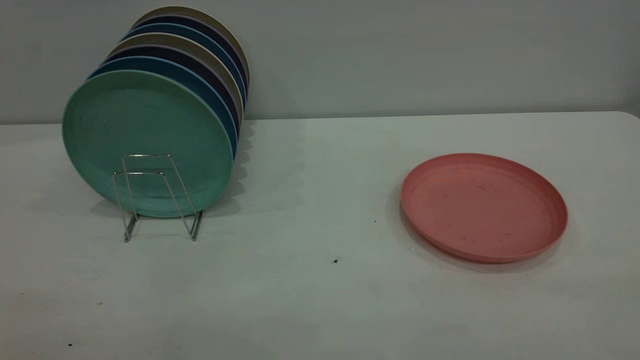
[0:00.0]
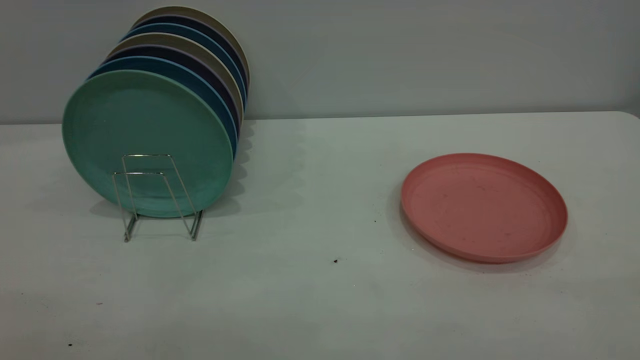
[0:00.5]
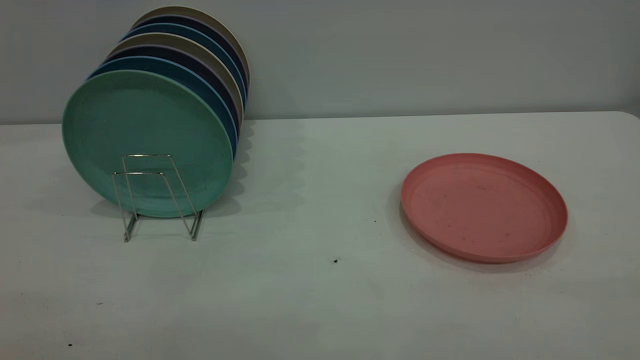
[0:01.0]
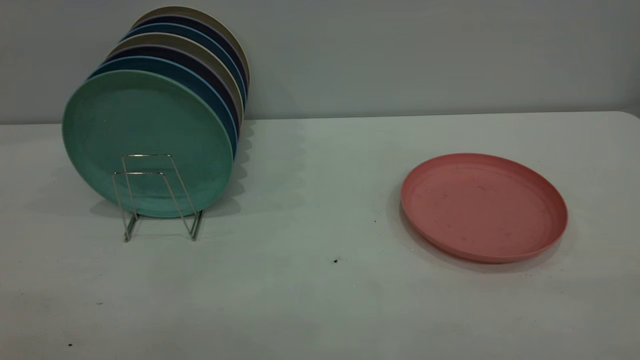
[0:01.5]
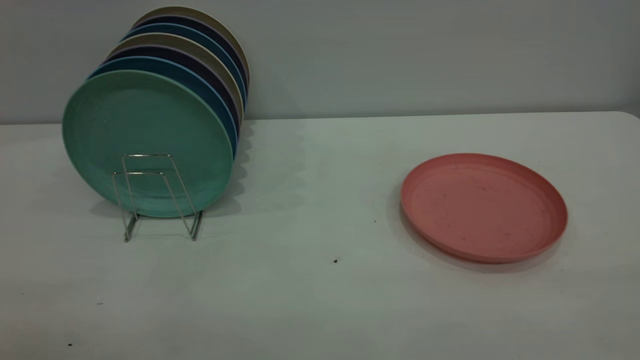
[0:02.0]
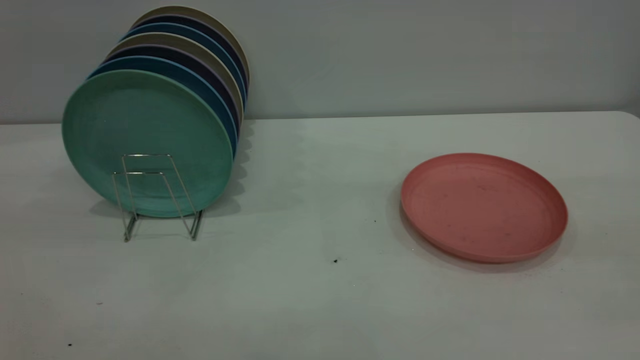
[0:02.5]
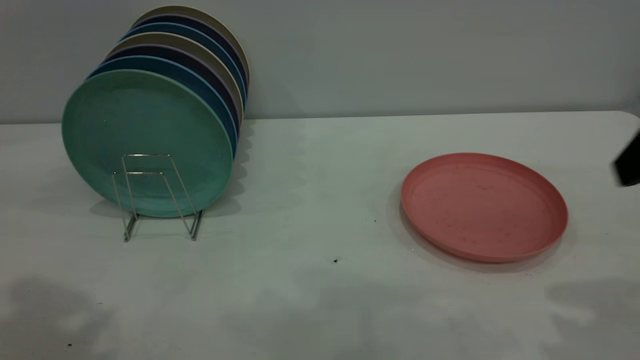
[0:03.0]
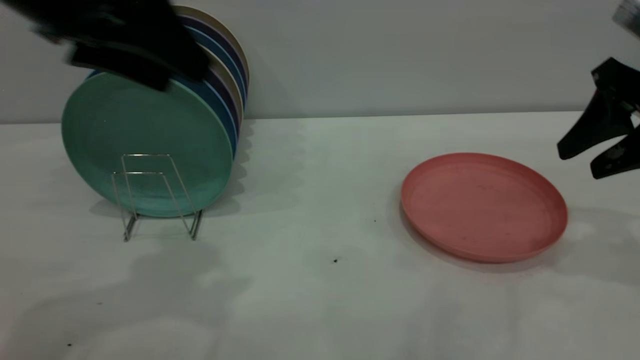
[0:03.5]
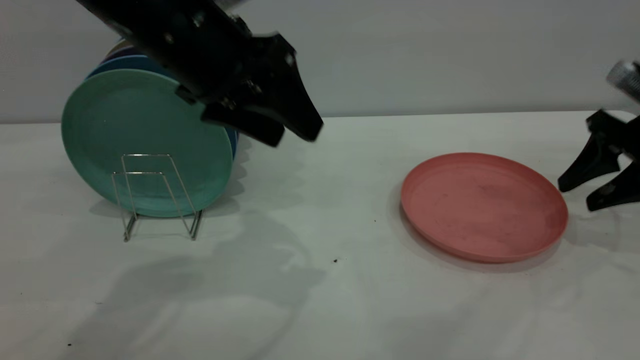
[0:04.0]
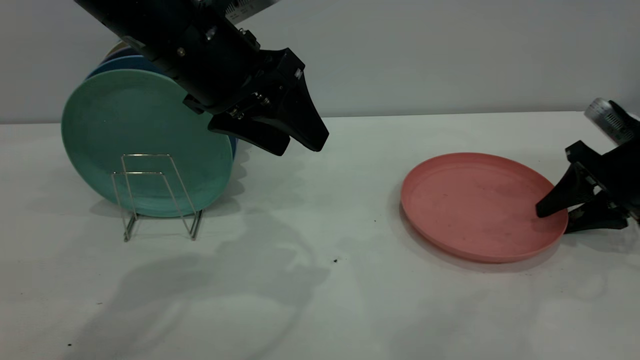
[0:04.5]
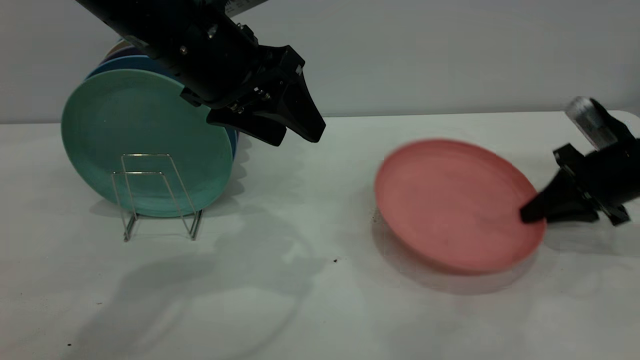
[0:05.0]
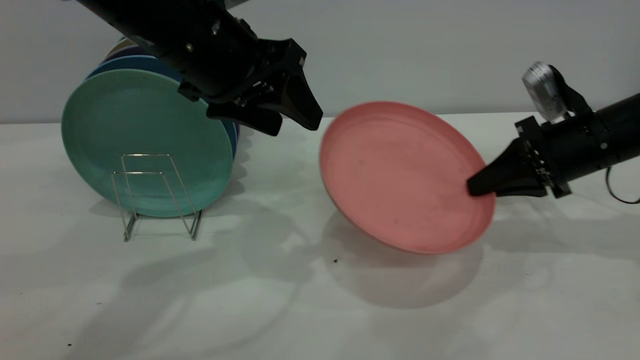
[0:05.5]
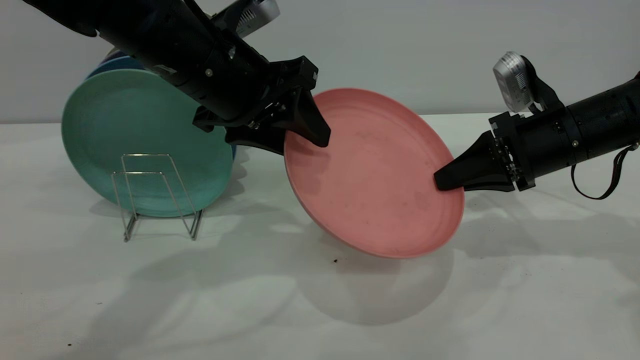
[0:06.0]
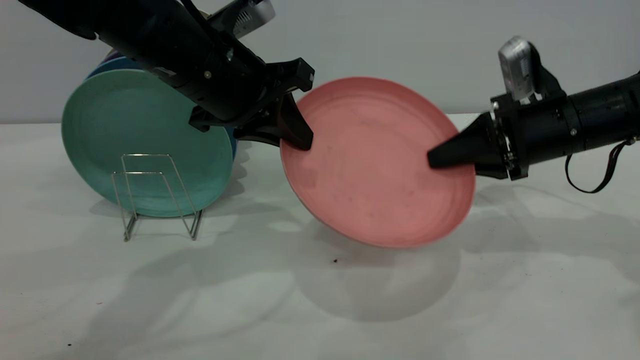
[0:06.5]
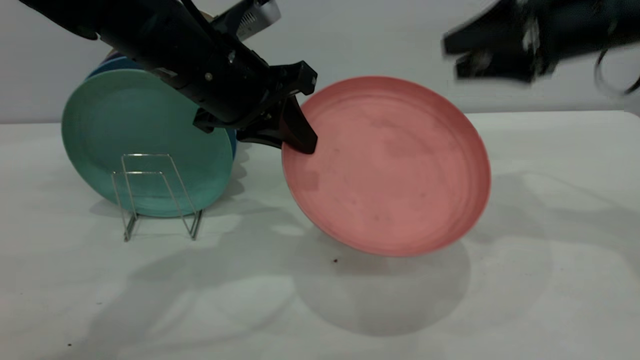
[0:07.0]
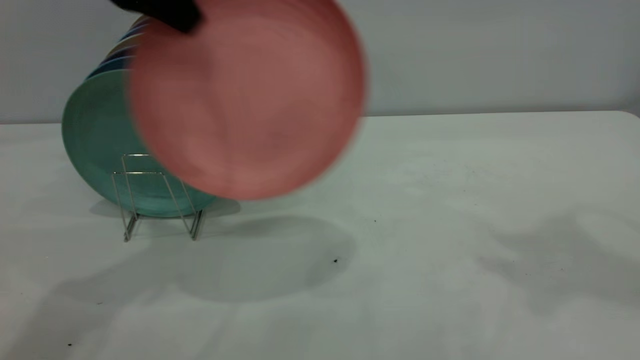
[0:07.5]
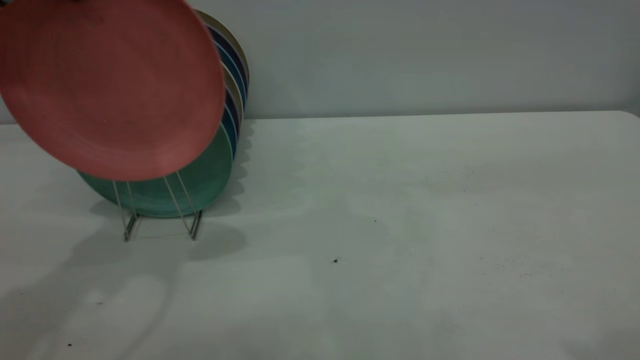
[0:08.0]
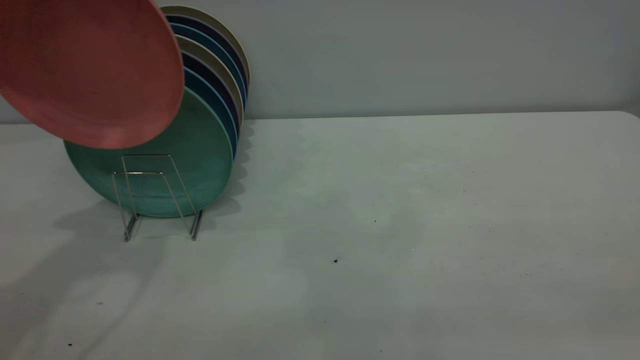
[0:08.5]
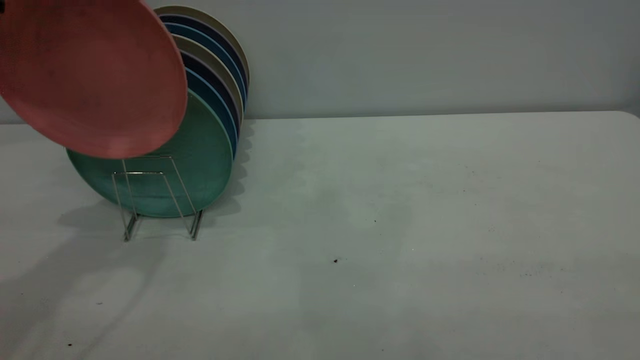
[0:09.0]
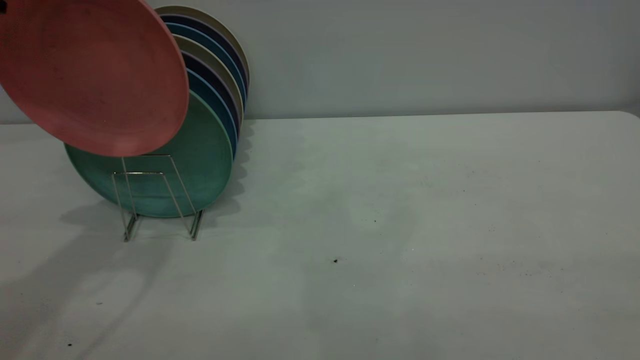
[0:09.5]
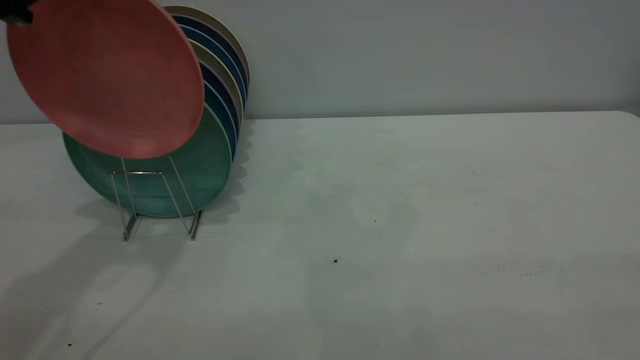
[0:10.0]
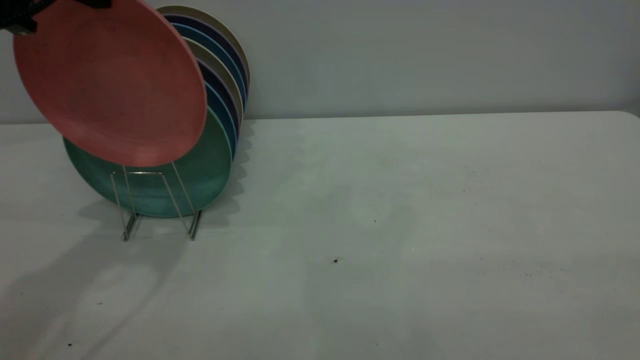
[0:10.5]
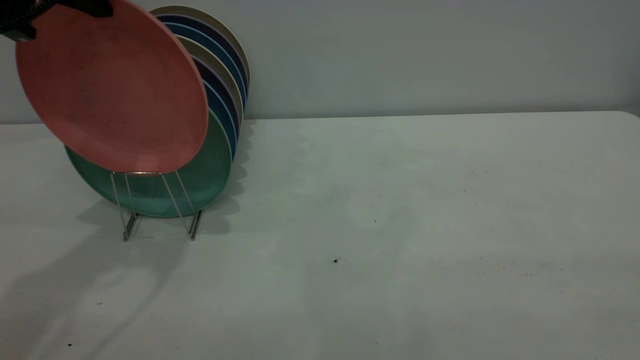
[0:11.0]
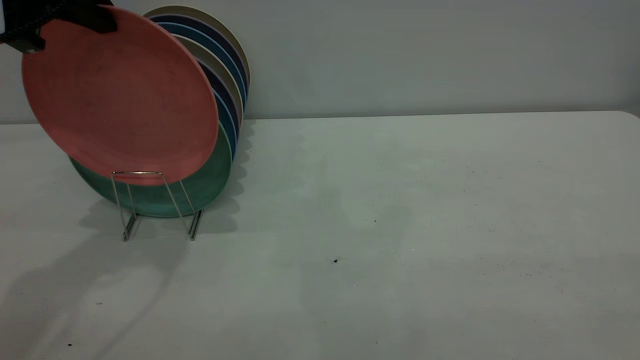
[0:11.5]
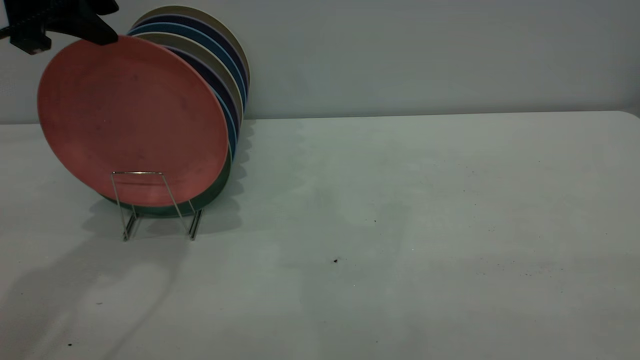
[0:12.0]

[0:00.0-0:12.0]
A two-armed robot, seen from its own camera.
Task of the whole recording: the right gripper grasp the pink plate, the right gripper pass the pink plate to the left gripper, and the left gripper place the pink plate on the plate rack.
Step, 0:00.0 to 0:05.0: Pick up the plate with the right gripper.
Step, 0:05.5 to 0:06.5: Pass the plate from the right gripper to the left gripper.
0:02.0 to 0:04.0: The right gripper is displaced forward and downward by about 50 cm. Meanwhile the left gripper moves forward and to the right, about 40 cm.
0:04.0 to 0:06.0: The right gripper shifts about 10 cm to the left, and closes up.
0:06.0 to 0:08.0: The right gripper travels upward and backward by approximately 40 cm, and opens up, while the left gripper shifts some 20 cm upward and to the left, and closes up.
0:10.0 to 0:12.0: The left gripper opens.

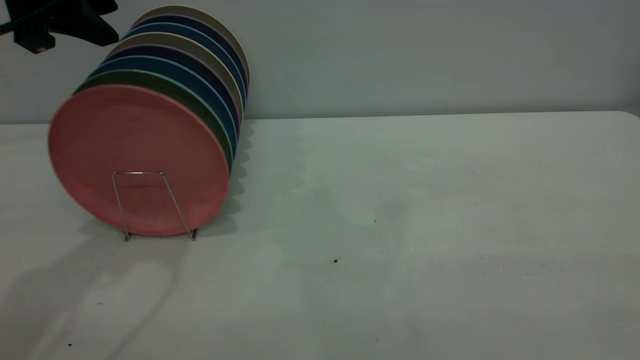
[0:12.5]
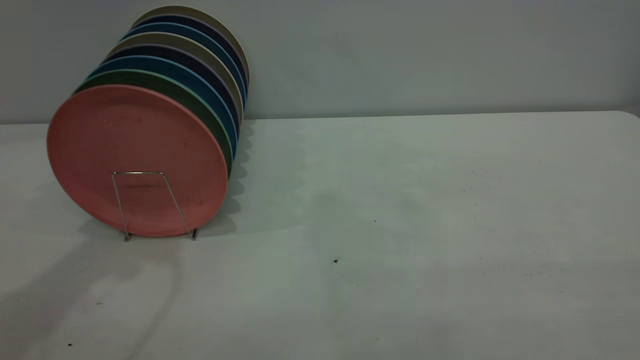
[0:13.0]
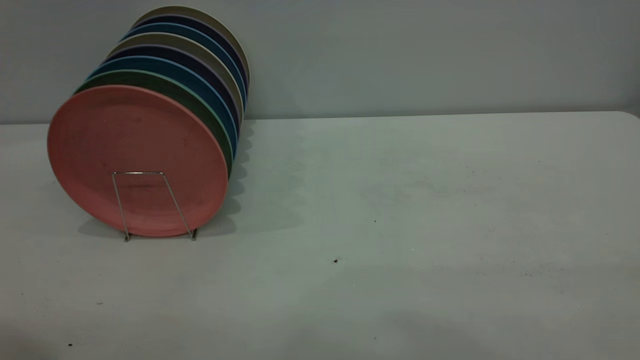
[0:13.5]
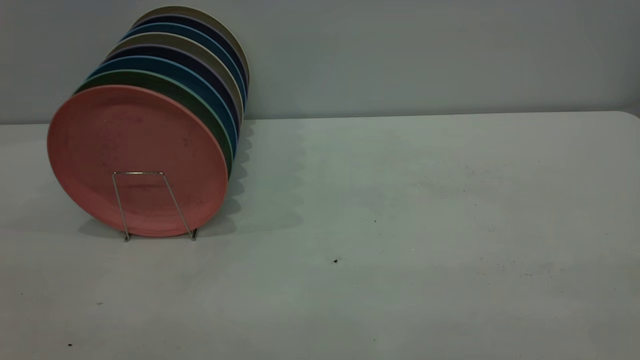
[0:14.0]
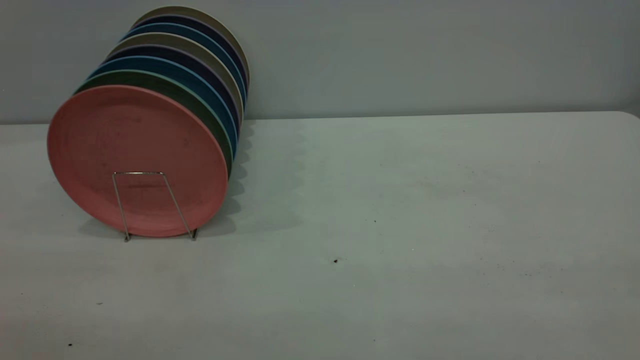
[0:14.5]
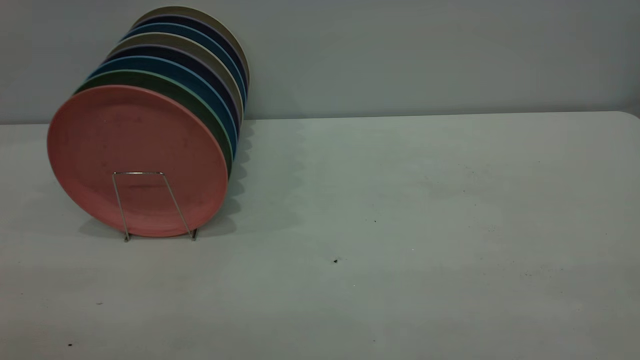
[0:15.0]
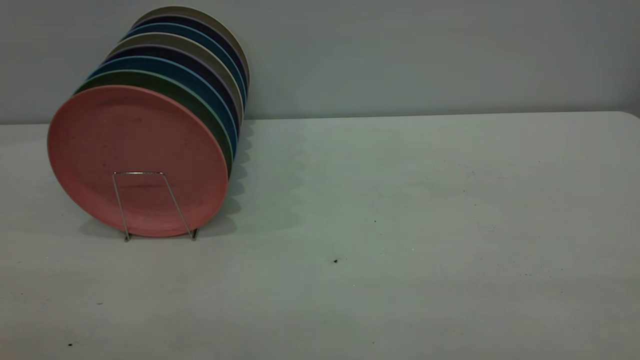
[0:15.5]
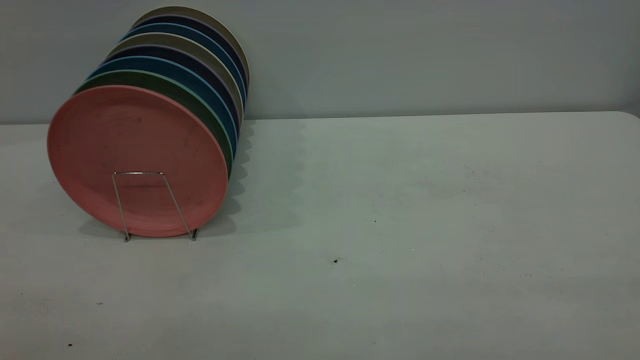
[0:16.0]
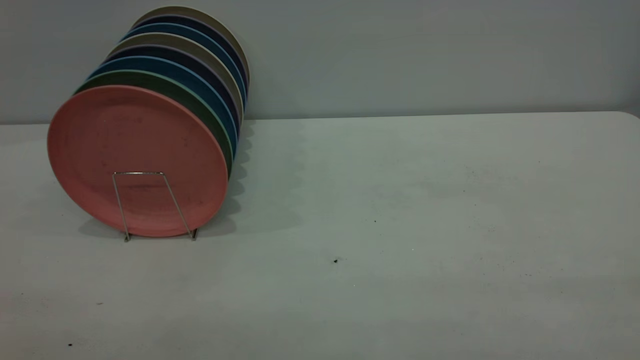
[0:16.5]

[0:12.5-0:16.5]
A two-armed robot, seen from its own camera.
Task of the whole recording: the right gripper grasp the pink plate, the right gripper pass the pink plate to the left gripper, and the left gripper place the pink plate on the plate rack.
0:12.5 to 0:14.5: The left gripper is displaced backward by approximately 35 cm.

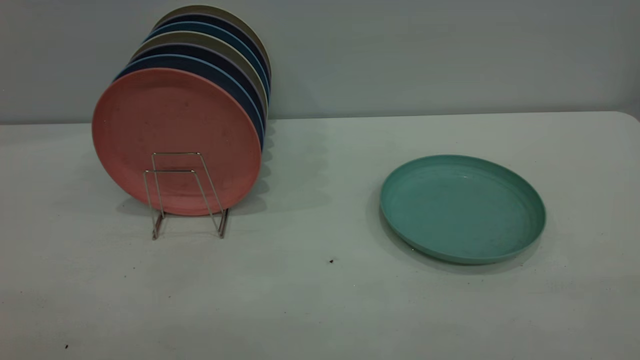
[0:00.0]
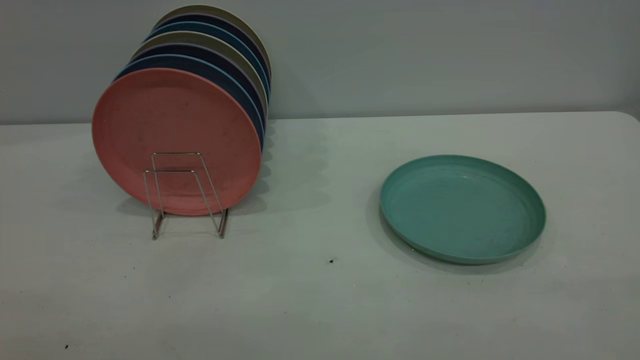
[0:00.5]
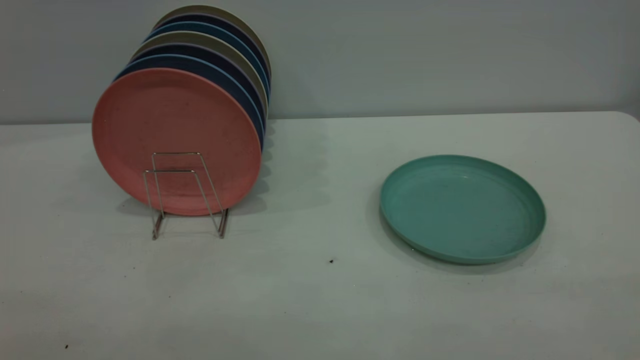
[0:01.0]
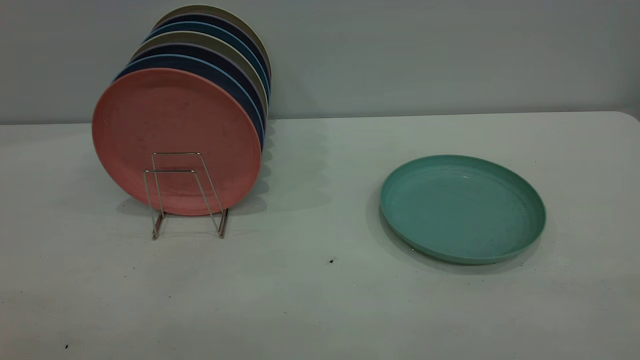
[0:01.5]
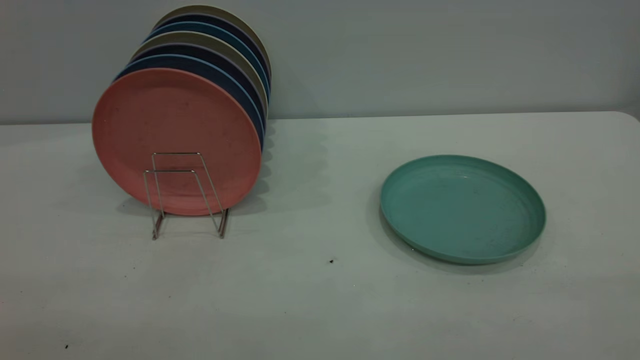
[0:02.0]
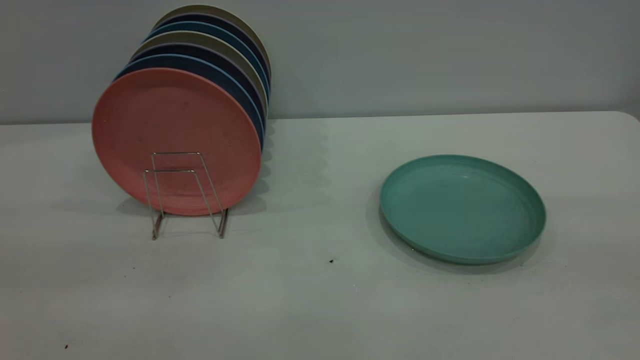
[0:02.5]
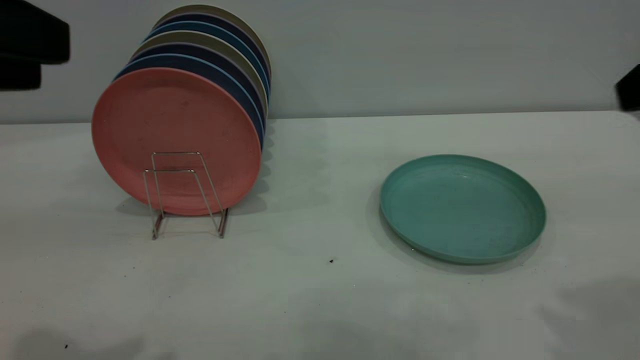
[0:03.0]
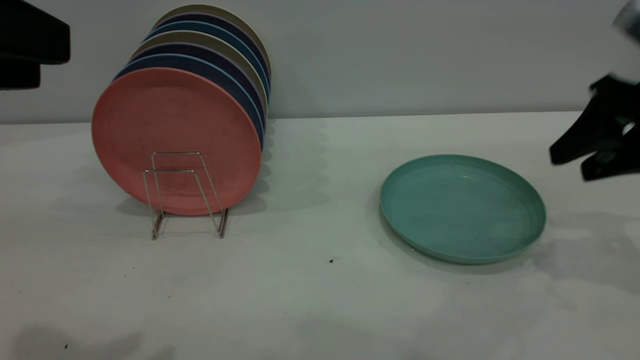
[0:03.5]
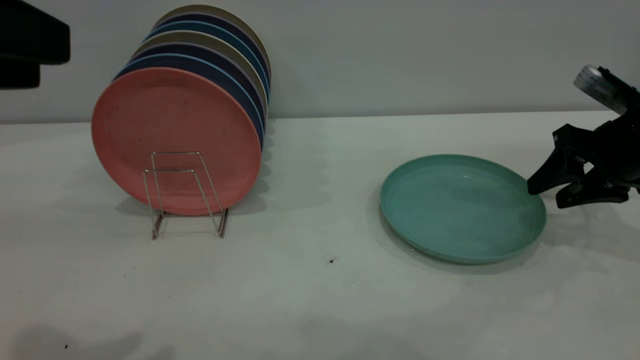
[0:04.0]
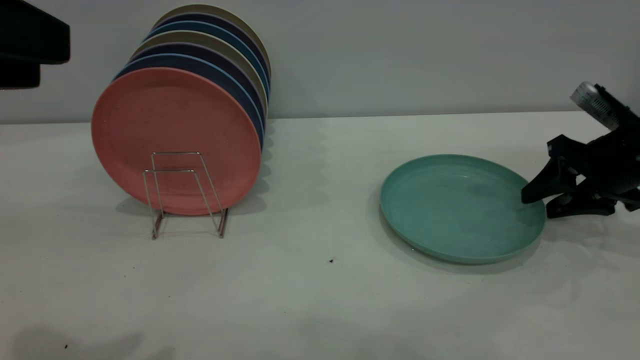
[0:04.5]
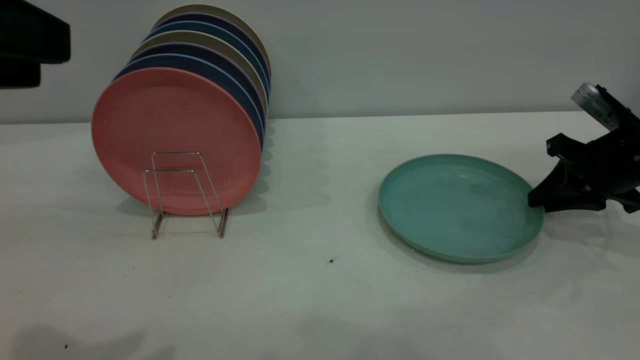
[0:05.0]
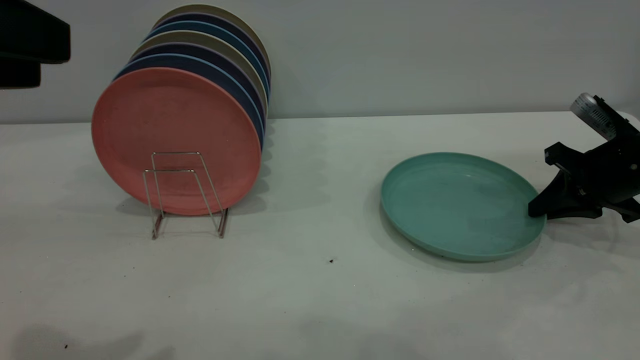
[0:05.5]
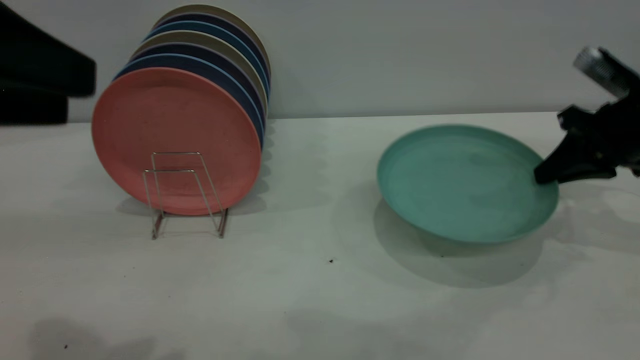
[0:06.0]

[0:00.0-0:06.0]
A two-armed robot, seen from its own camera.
Task of the whole recording: the right gripper grasp the green plate, the right gripper pass the green plate to the left gripper, and the left gripper place the green plate on the plate rack.
Step, 0:00.0 to 0:06.0: Pick up the plate with the right gripper.
0:02.0 to 0:04.0: The right gripper heads forward and downward, covering some 50 cm. Meanwhile the left gripper is displaced forward by some 20 cm.
0:04.0 to 0:06.0: The right gripper closes its fingers.
